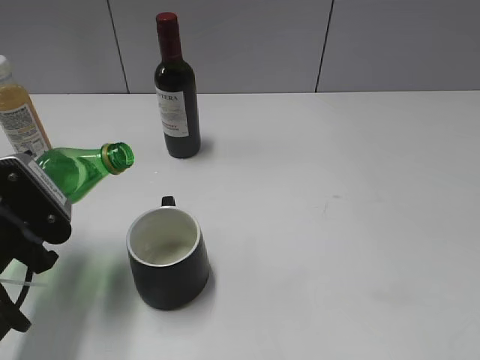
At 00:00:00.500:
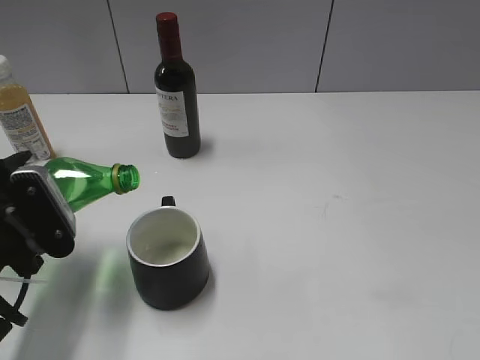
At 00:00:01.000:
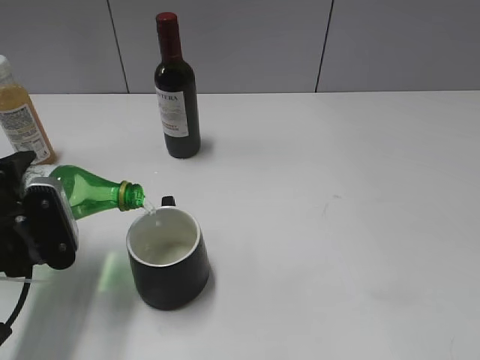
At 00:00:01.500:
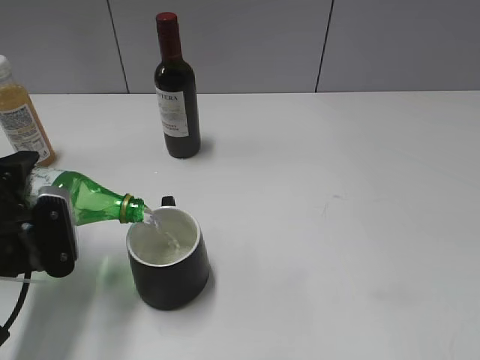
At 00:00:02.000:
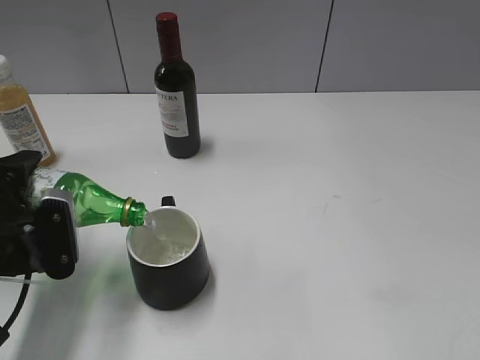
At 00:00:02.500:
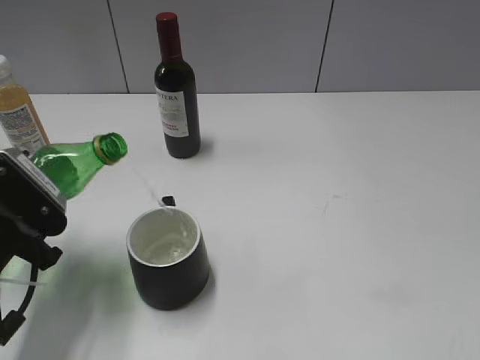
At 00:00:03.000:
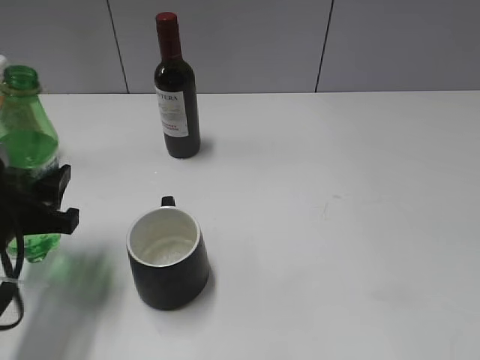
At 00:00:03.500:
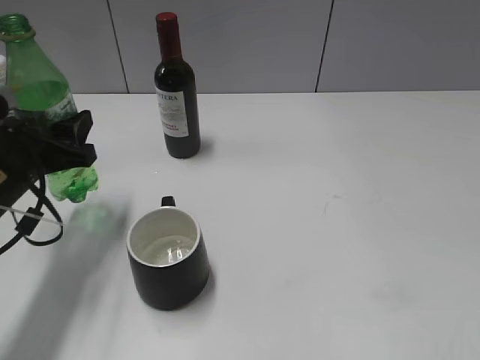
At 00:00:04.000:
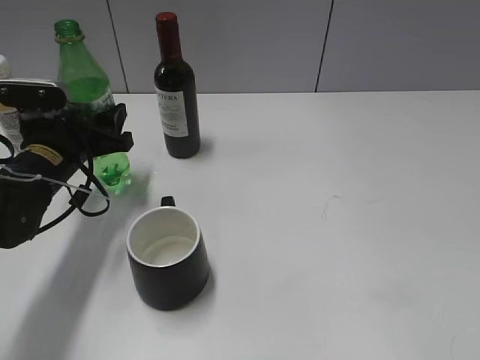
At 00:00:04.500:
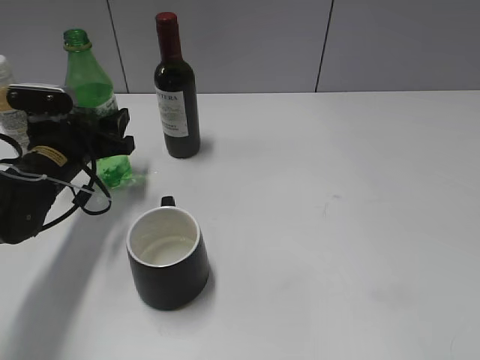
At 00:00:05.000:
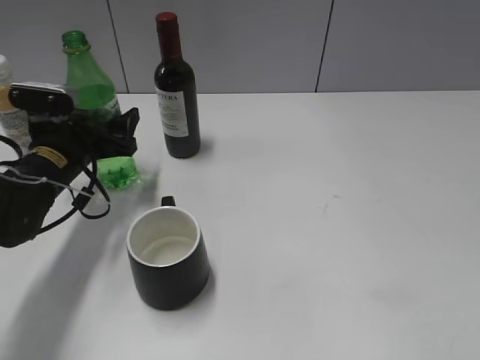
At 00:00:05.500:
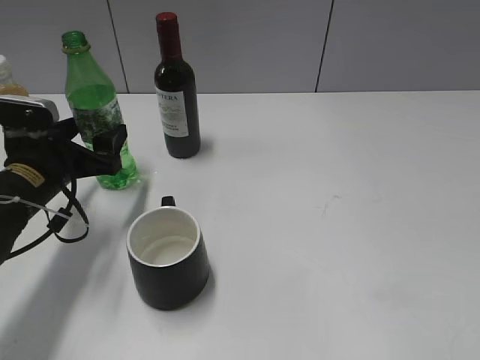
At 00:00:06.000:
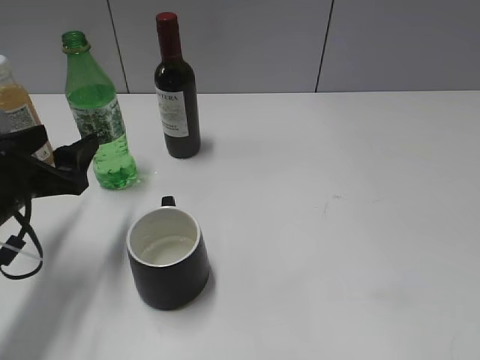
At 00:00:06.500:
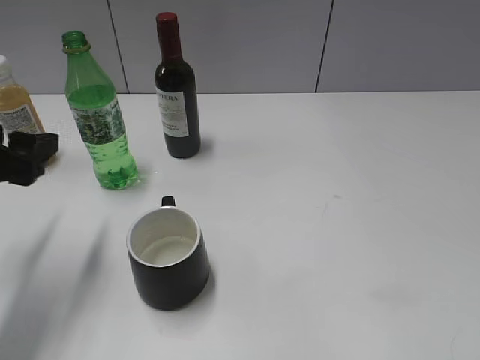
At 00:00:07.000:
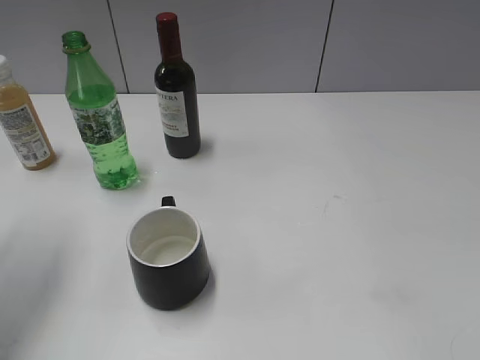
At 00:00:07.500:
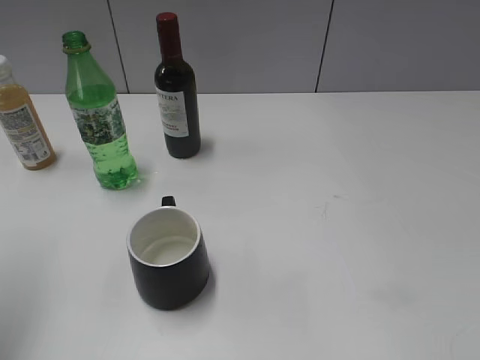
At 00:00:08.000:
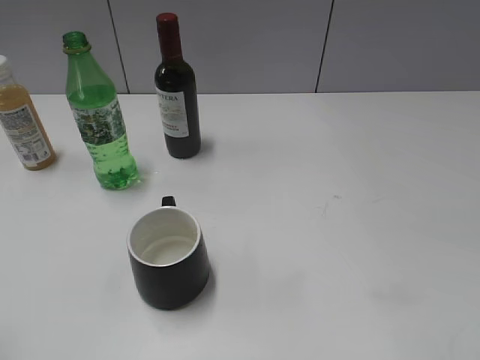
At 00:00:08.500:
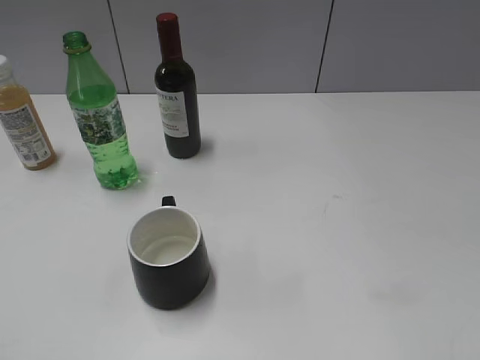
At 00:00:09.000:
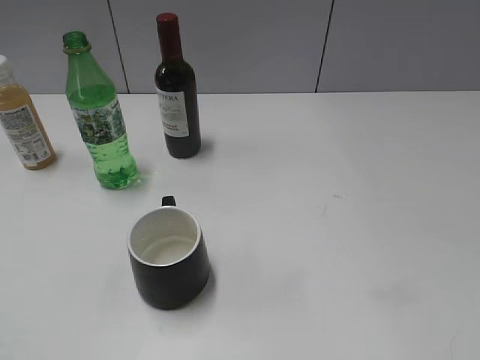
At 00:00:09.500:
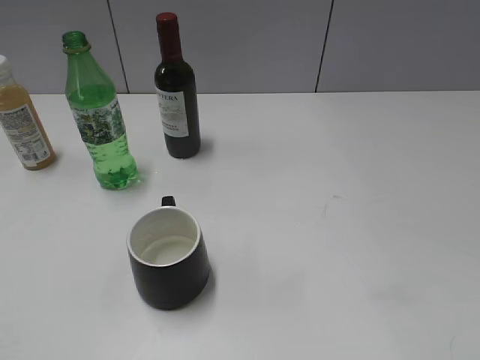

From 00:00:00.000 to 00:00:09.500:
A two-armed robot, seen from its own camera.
Step, from 00:00:00.000 to 00:00:02.500: Pour the sprite from bottle to cup with left gripper.
Step, from 00:00:03.000 to 00:00:05.500: Place the sprite bottle on the table with left gripper.
From 00:00:02.000 to 00:00:04.000: The left gripper shifts approximately 15 cm forward.
From 00:00:04.000 to 00:00:05.500: The left gripper opens its fingers.
From 00:00:05.500 to 00:00:07.500: The left gripper shifts approximately 25 cm upward and backward.
From 00:00:07.500 to 00:00:09.500: The left gripper heads backward, covering about 20 cm.

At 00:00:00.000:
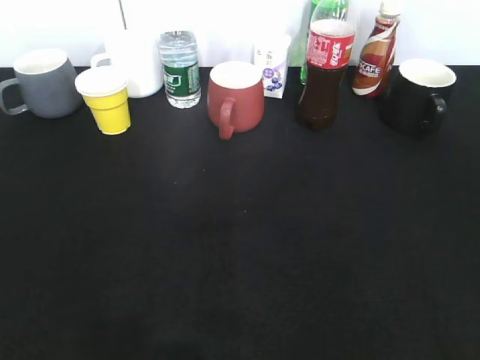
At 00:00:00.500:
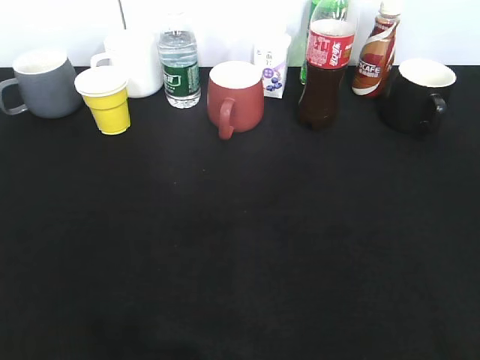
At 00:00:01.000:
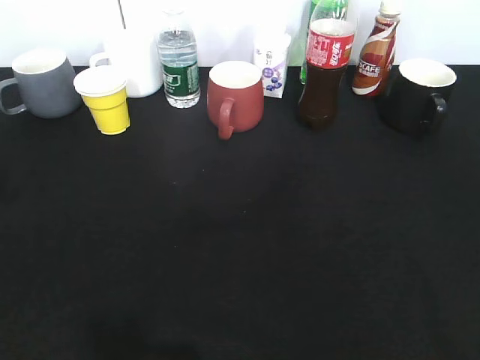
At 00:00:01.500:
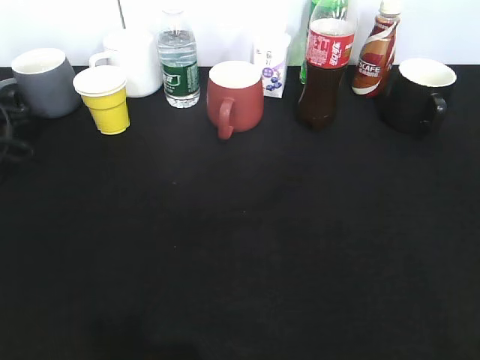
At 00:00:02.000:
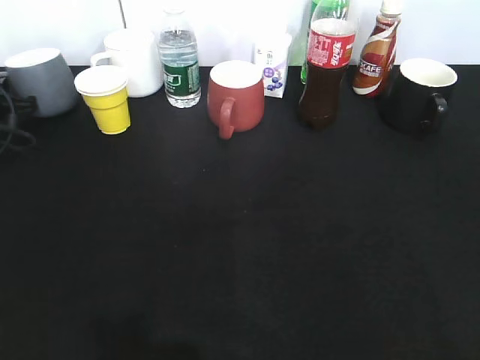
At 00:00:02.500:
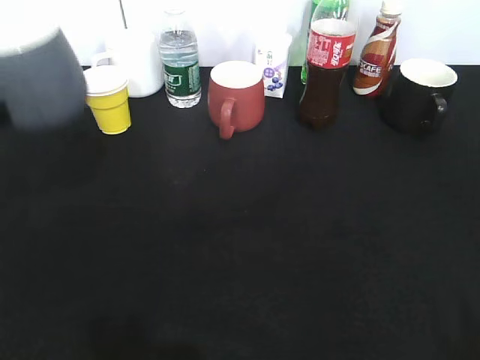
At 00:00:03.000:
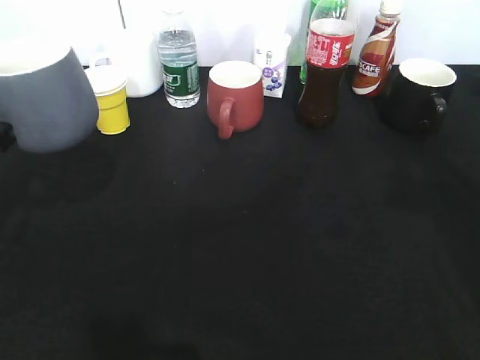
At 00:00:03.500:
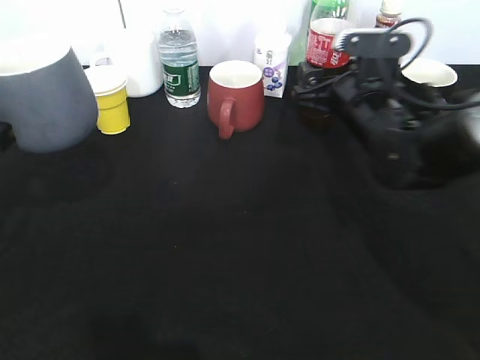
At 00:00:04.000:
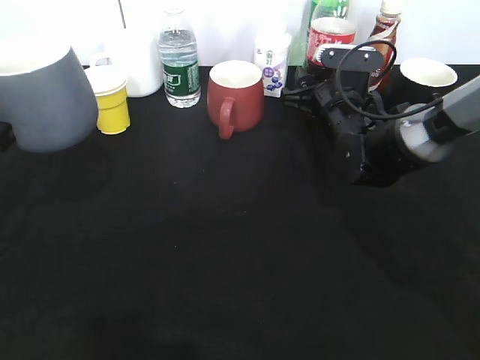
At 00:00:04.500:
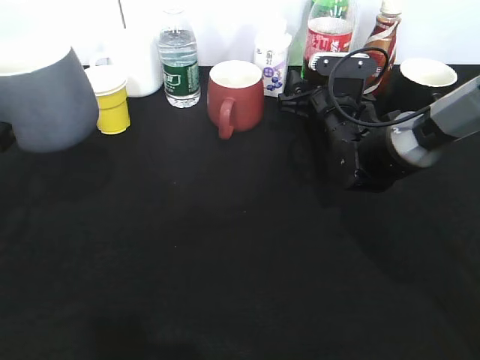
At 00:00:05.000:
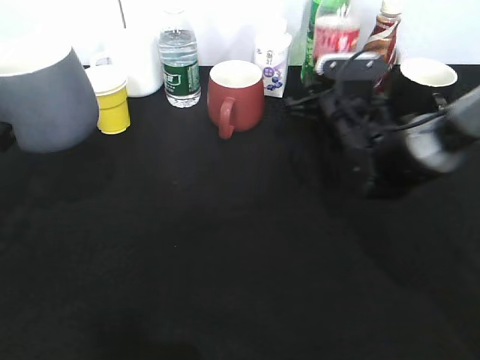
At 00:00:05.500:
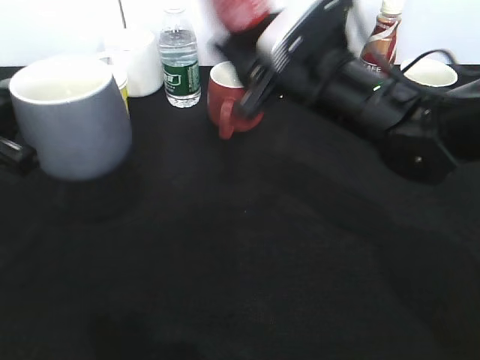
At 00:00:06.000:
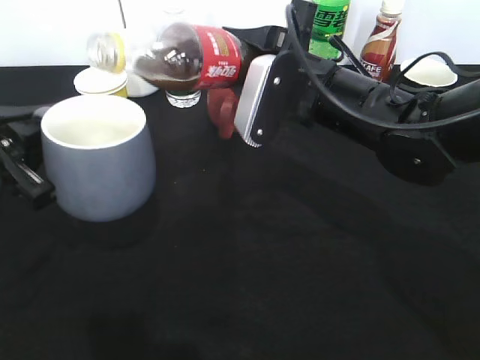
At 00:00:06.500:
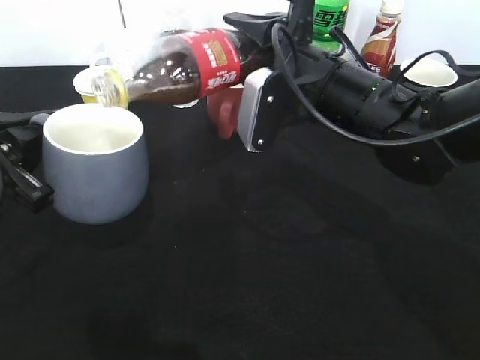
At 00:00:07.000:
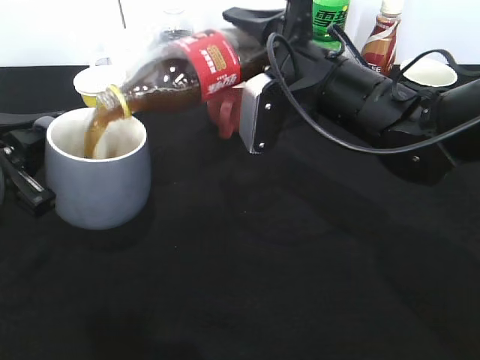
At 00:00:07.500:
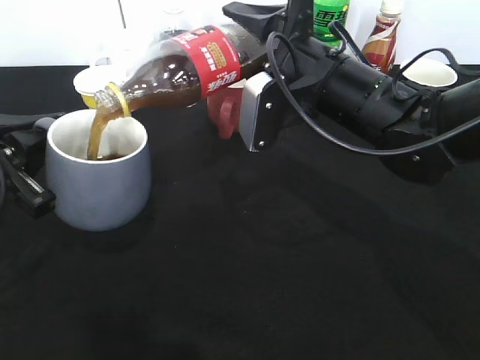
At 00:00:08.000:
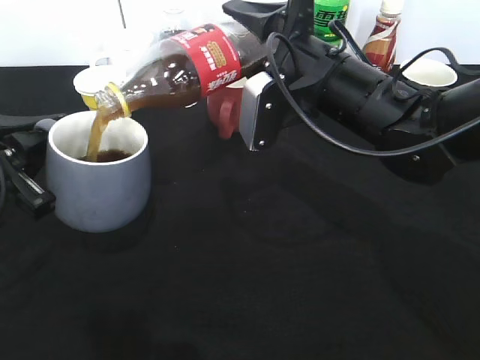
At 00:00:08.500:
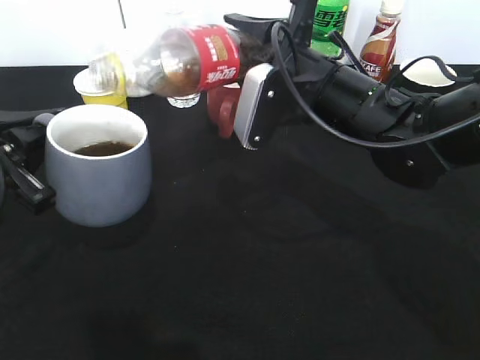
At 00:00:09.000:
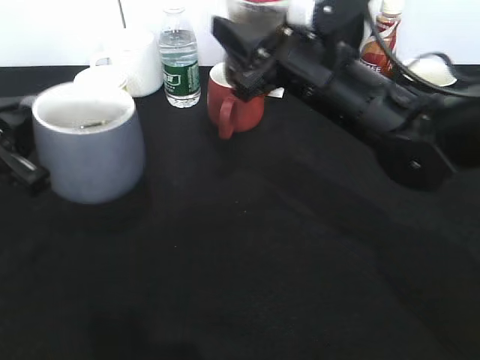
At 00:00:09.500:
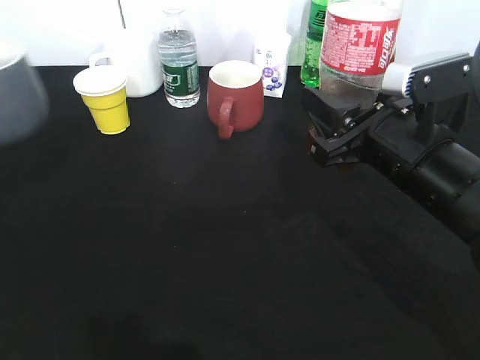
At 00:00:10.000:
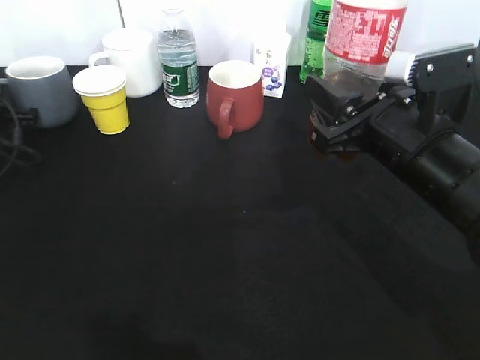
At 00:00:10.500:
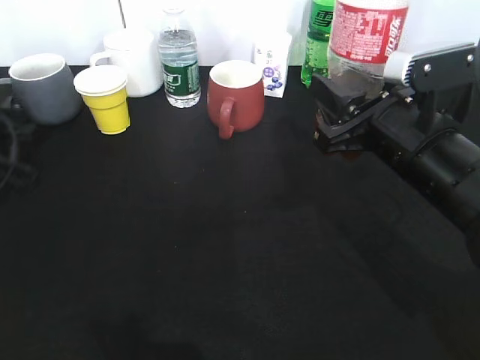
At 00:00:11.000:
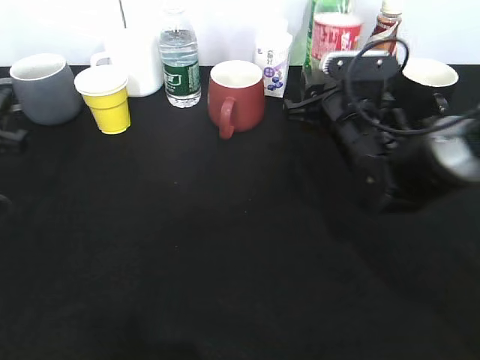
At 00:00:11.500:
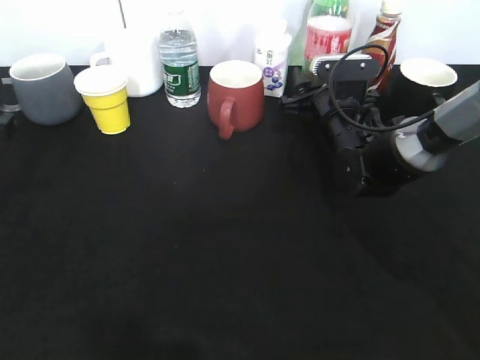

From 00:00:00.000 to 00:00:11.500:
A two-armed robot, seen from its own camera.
Step, from 00:00:03.000 to 00:00:04.500: Grasp the bottle with cola with right gripper.
Step, from 00:00:05.000 to 00:00:08.000: Pour the cola from bottle to cup with right gripper.
Step, from 00:00:08.500 to 00:00:10.500: Place the grey cup on the table with left gripper.
From 00:00:00.000 to 00:00:02.000: The left gripper heads forward, covering about 40 cm, and closes.
From 00:00:02.000 to 00:00:04.000: The left gripper goes roughly 25 cm backward, upward and to the right. Meanwhile the right gripper is displaced forward, downward and to the left by some 50 cm.
From 00:00:04.000 to 00:00:06.000: The right gripper moves upward, backward and to the left, roughly 15 cm, and closes its fingers.
From 00:00:07.500 to 00:00:09.500: The left gripper travels to the left by approximately 10 cm, while the right gripper goes roughly 10 cm backward and to the right.
From 00:00:09.500 to 00:00:11.500: The left gripper moves some 15 cm forward and comes back, and opens; the right gripper travels forward and downward by approximately 20 cm, and opens up.

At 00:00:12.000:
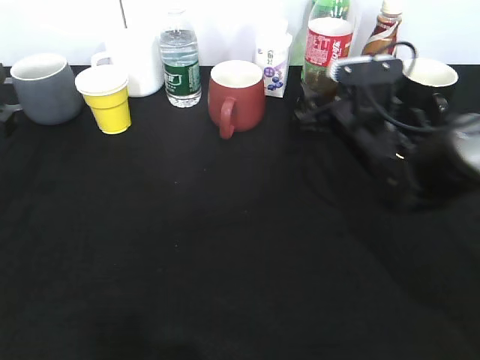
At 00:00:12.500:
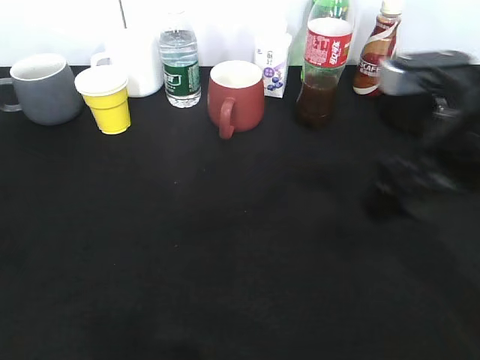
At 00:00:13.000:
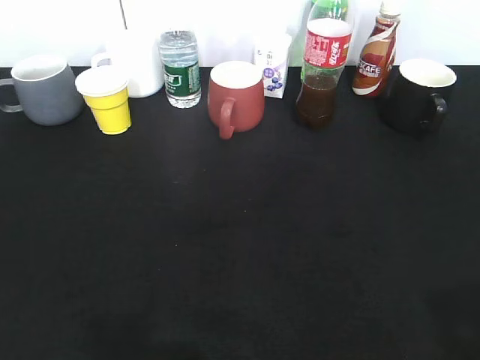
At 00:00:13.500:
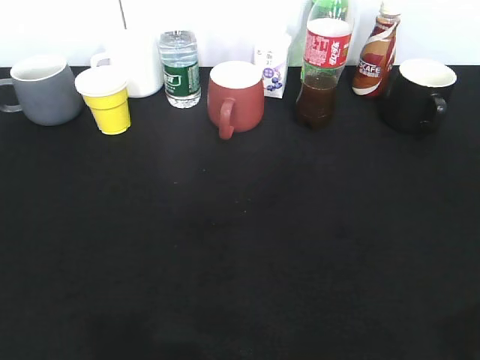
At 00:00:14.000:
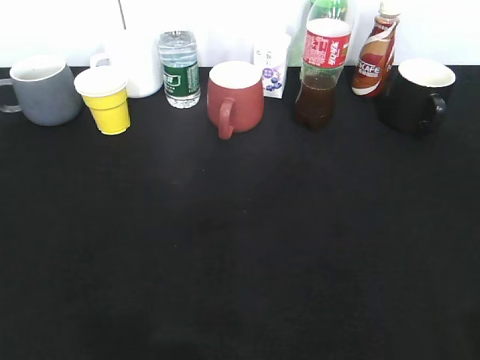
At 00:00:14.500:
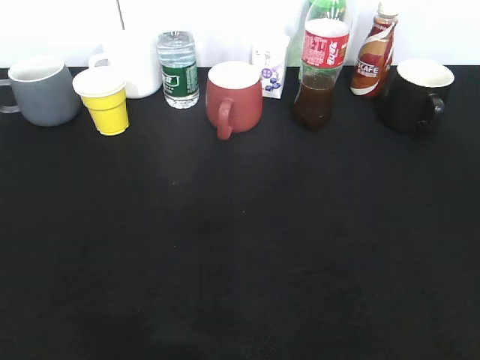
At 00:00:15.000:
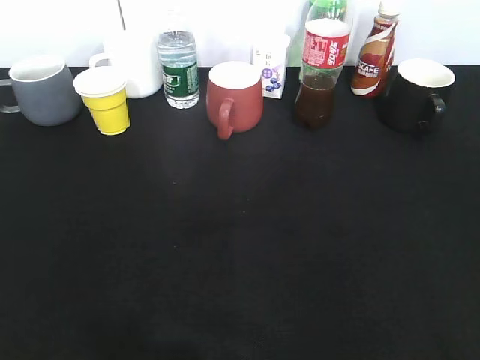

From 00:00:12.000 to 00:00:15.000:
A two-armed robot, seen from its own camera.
From 00:00:12.000 to 00:00:13.500: The right gripper travels backward, upward and to the right by some 40 cm. Meanwhile the left gripper shifts some 25 cm backward.
From 00:00:13.500 to 00:00:15.000: The left gripper closes up.
